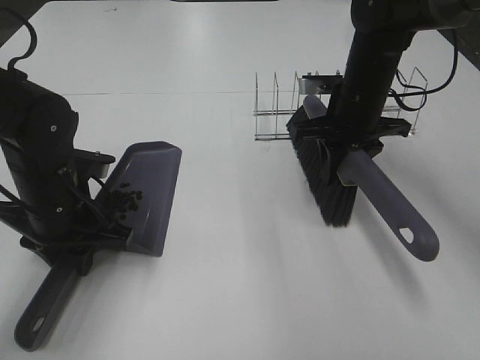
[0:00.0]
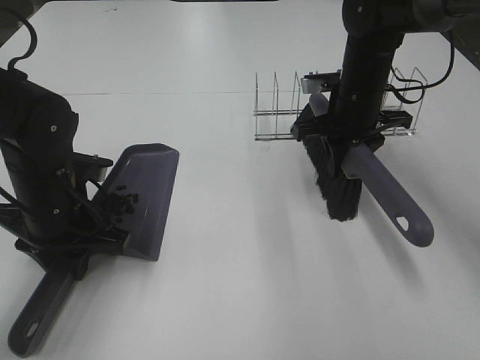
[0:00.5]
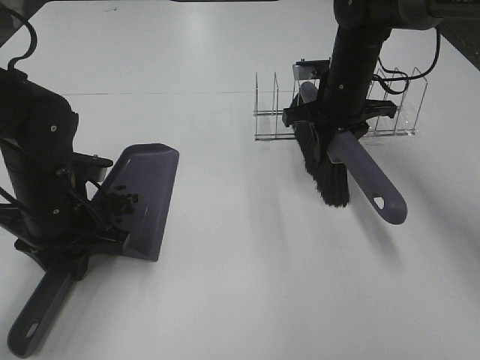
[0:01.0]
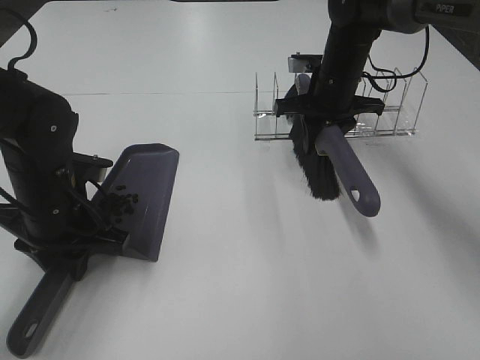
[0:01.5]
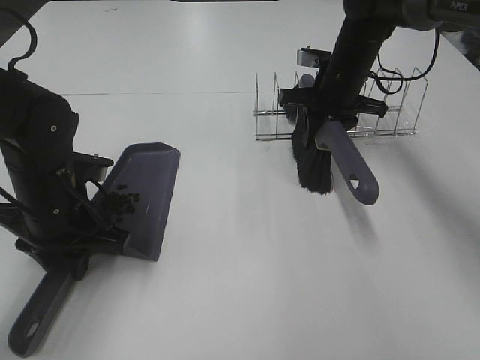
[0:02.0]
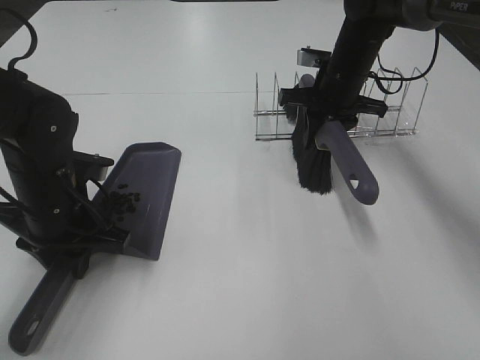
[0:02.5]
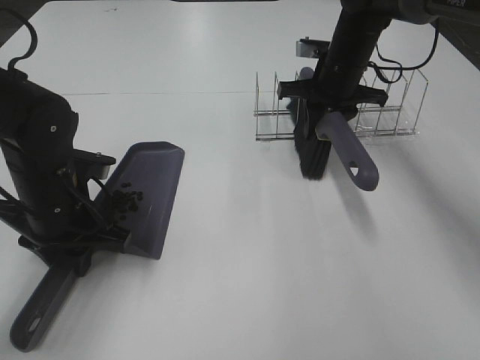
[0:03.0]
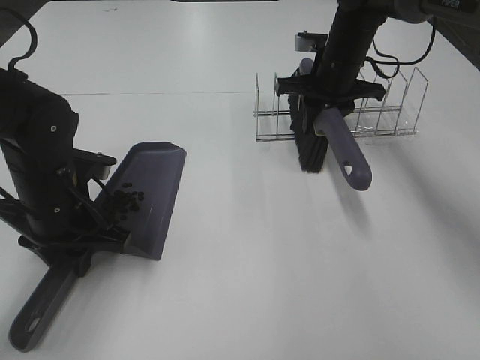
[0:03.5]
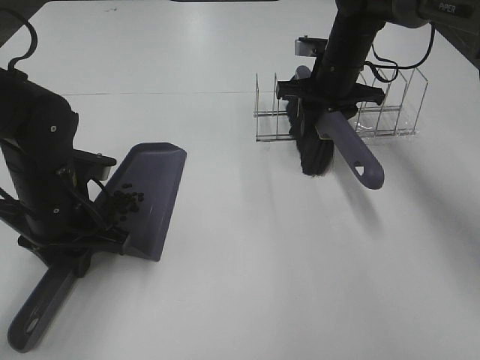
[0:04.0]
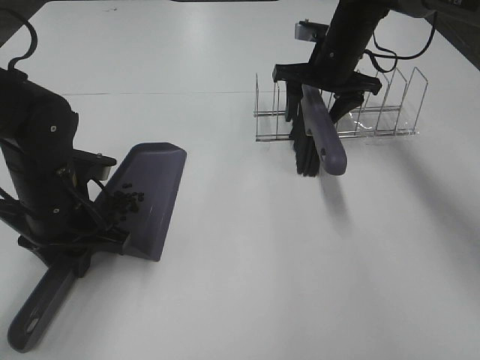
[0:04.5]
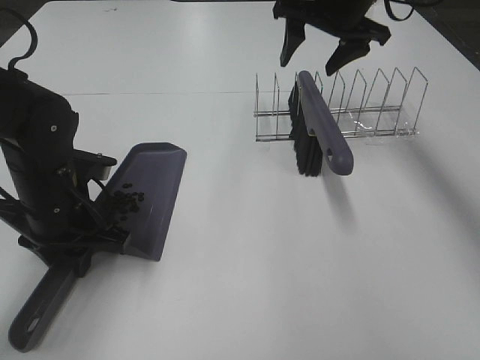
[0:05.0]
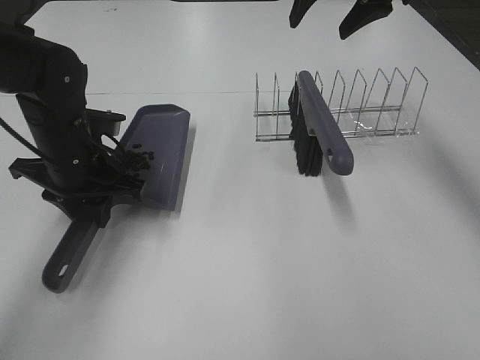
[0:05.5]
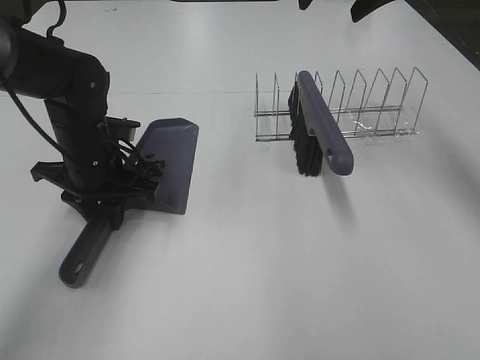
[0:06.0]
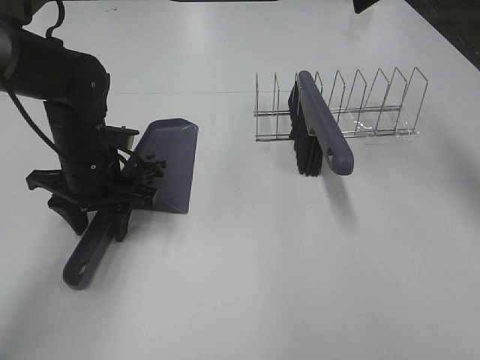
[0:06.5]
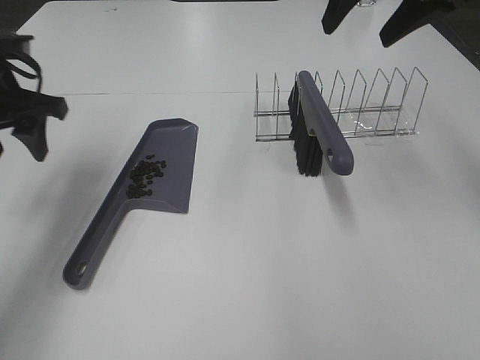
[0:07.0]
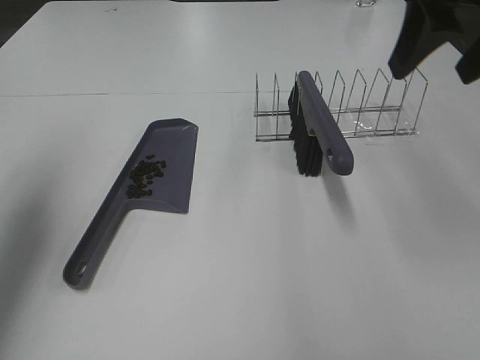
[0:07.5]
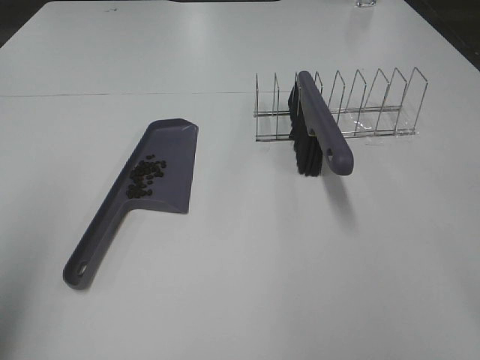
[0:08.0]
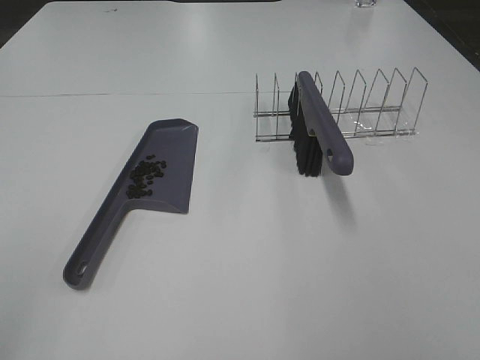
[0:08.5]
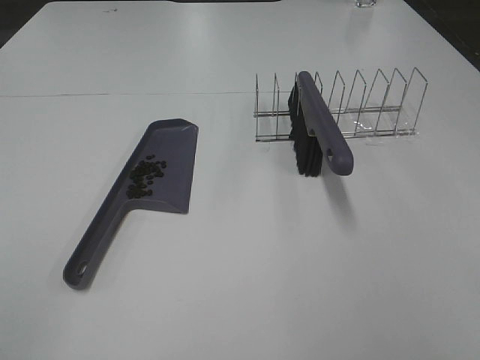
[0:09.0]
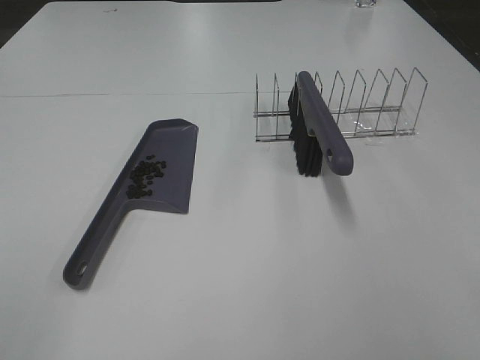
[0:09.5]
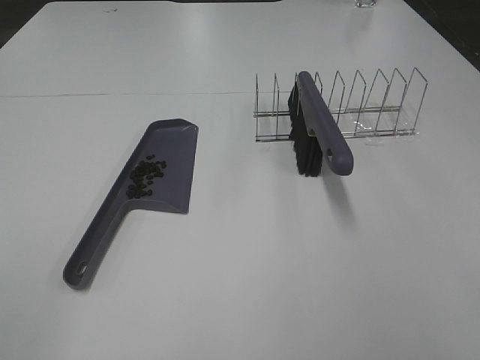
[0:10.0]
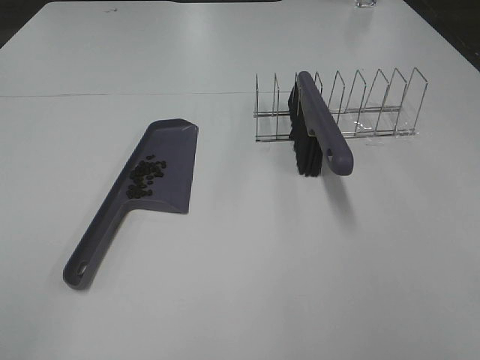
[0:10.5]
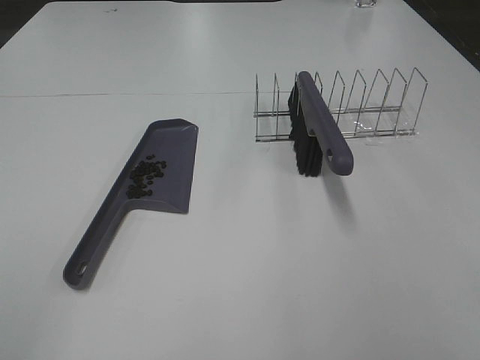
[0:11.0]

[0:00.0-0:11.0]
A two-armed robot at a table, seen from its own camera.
Task of the whole recording: Sweep Coffee Bean.
Step, 0:00.0 to 0:04.0: Right hand:place the broom on the rack.
Step, 0:04.5 to 0:06.0: Left hand:place the dustpan on the table.
0:00.0 to 0:02.0: The right gripper moves forward, about 5 cm.
0:02.0 to 0:03.5: The grippers move only a little.
0:03.5 to 0:05.5: The left gripper moves forward, some 5 cm. Meanwhile the right gripper is displaced upward by some 15 cm, and opens.
0:05.5 to 0:07.5: The right gripper goes some 20 cm backward; the left gripper goes some 20 cm upward and to the left.
0:07.5 to 0:09.0: Both grippers move backward, approximately 30 cm. The left gripper opens its fingers.

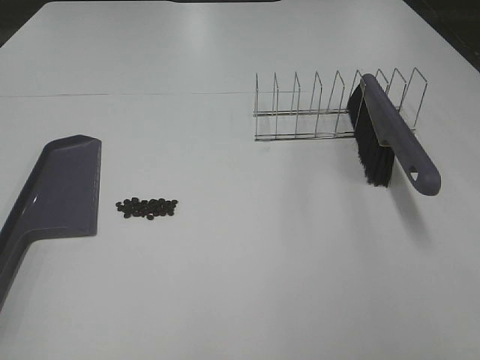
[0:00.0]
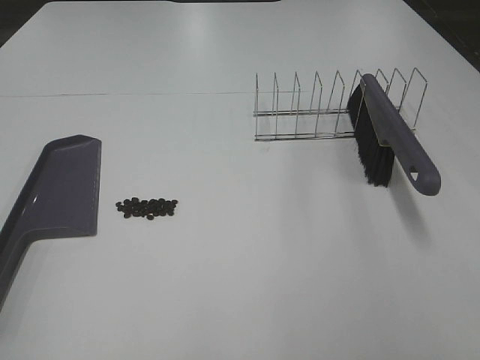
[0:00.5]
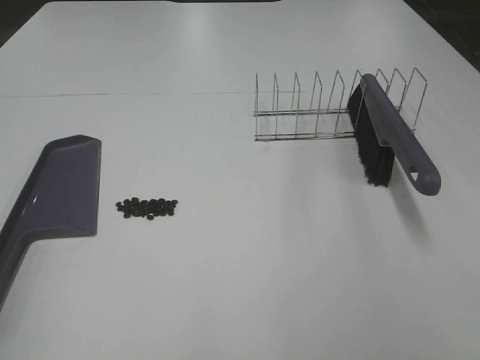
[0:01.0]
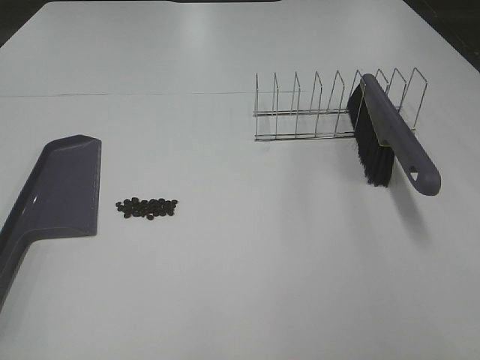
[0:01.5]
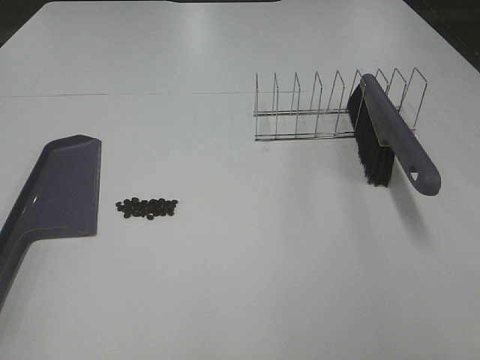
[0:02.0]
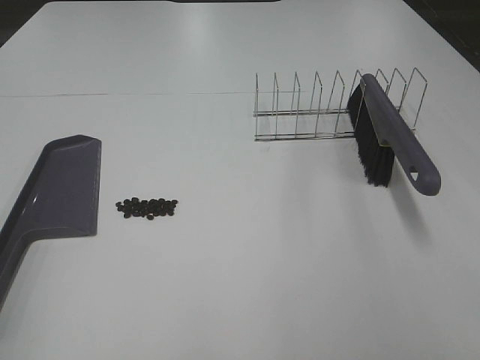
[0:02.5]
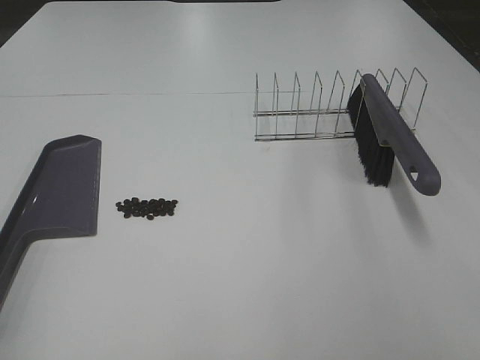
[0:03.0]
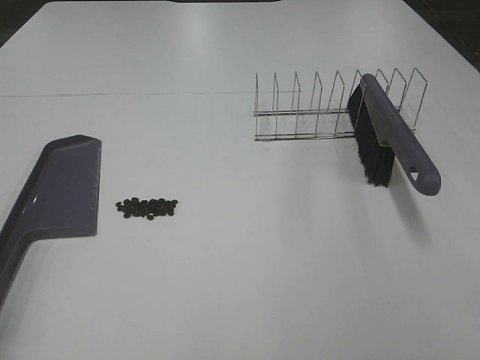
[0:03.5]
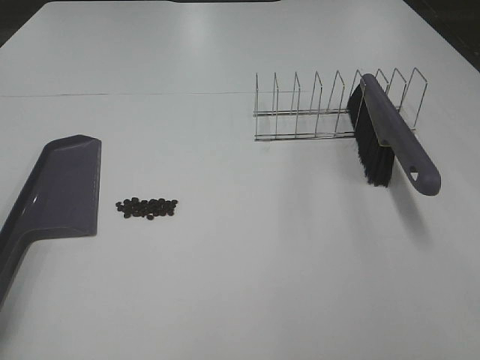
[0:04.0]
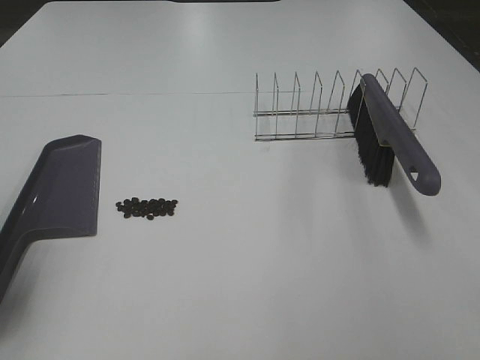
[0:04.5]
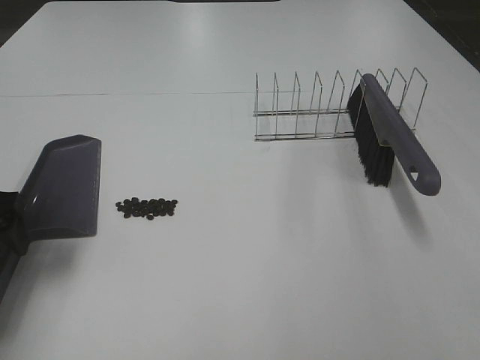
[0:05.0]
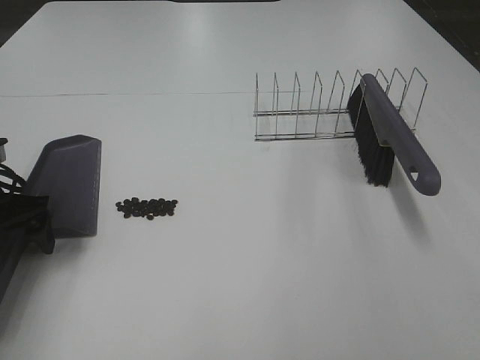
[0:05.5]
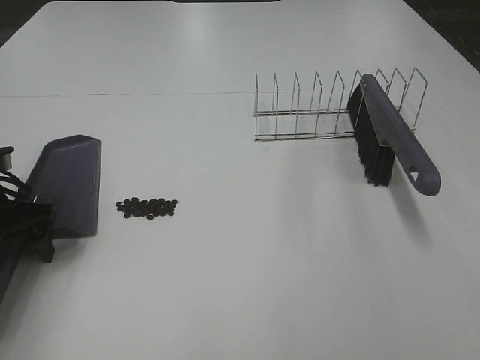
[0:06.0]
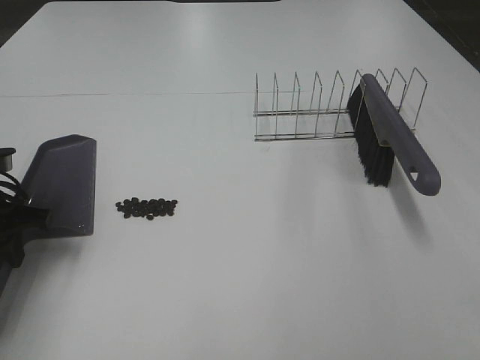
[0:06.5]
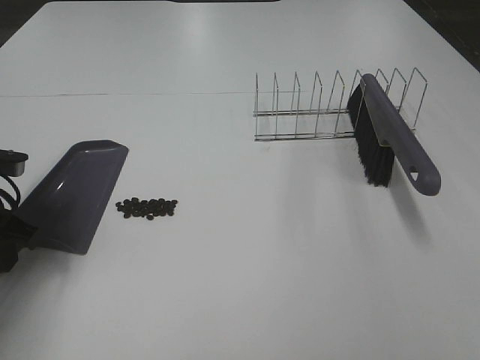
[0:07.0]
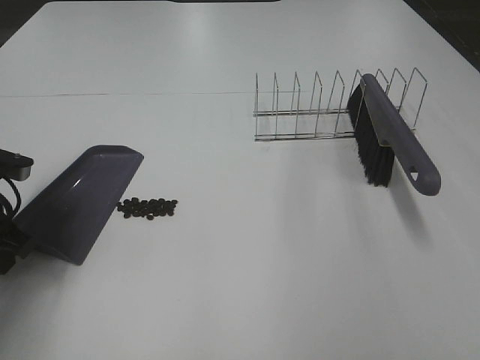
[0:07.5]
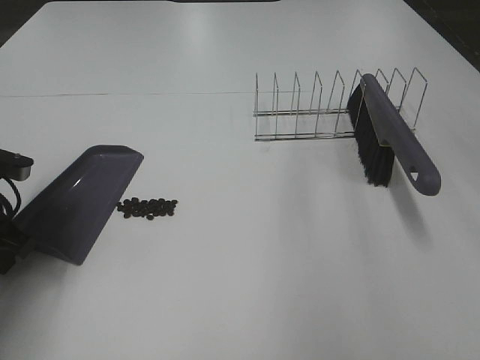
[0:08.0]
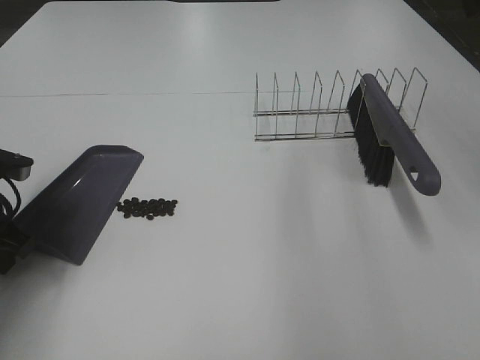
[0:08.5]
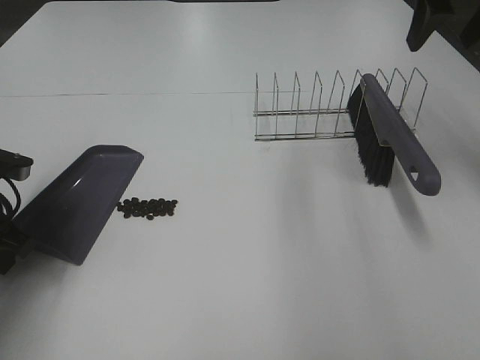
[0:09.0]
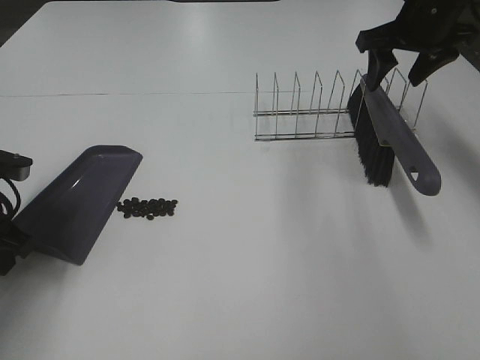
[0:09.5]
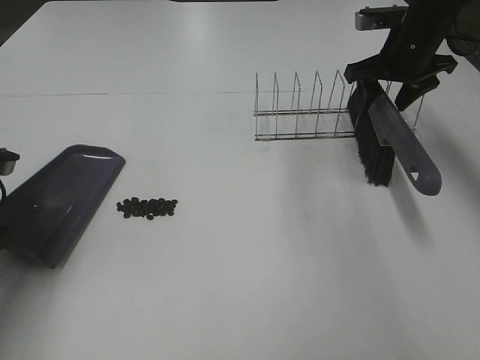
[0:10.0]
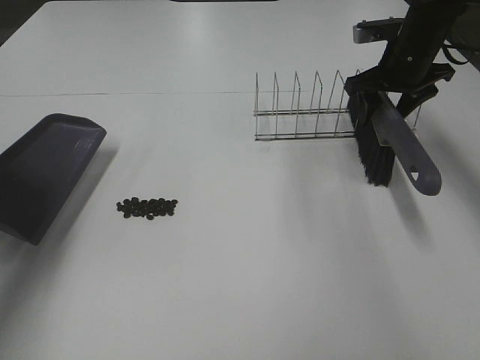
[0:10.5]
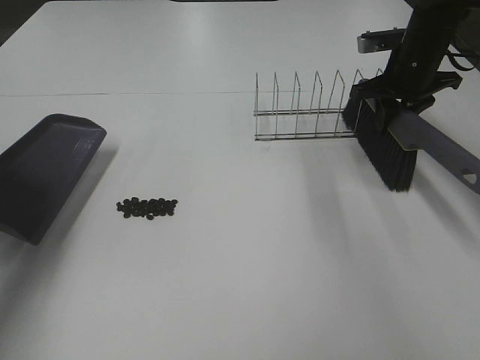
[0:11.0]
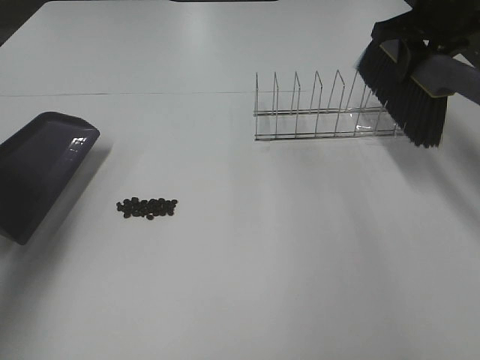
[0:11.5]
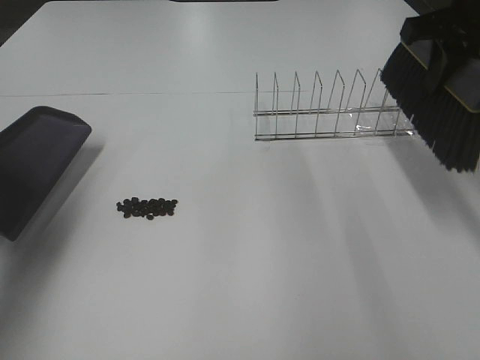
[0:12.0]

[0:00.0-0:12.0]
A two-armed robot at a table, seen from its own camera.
Task of the whole recording: Sweep Coffee Bean.
Step, 0:00.0 to 0:06.5: Left hand: grab the dustpan.
Step, 0:07.0 to 0:11.0: Right hand:grab the broom.
0:00.0 to 0:02.0: Both grippers stay put.
0:04.0 to 0:06.0: The left gripper goes roughly 20 cm forward and downward.
0:06.0 to 0:08.0: The left gripper closes.
0:08.0 to 0:10.0: The right gripper heads forward and downward, covering some 35 cm.
0:10.0 to 0:12.0: The right gripper moves backward and upward, roughly 15 cm, and closes up.

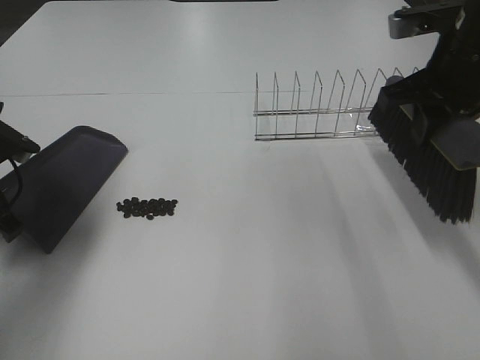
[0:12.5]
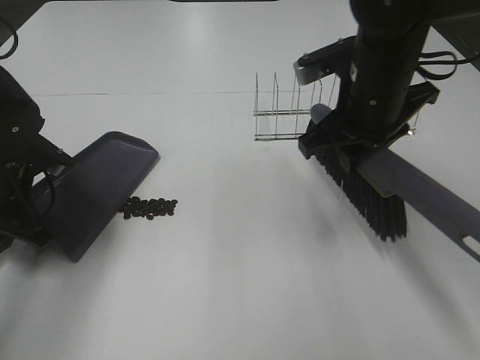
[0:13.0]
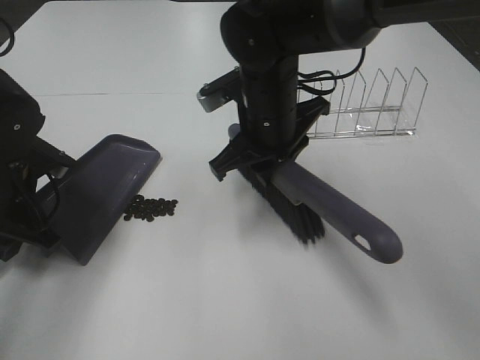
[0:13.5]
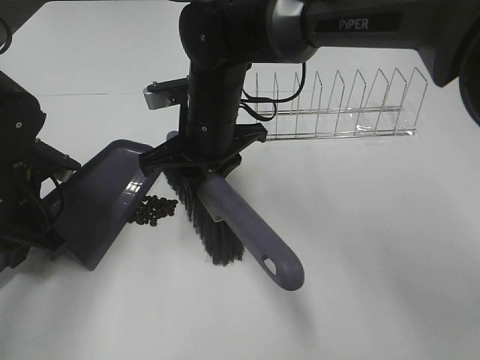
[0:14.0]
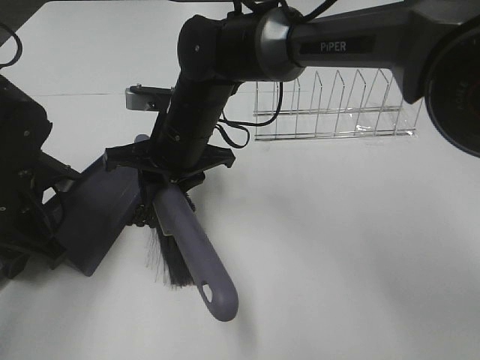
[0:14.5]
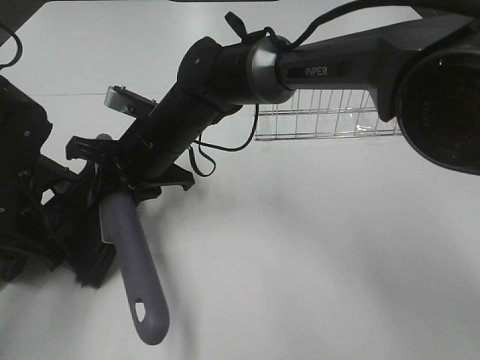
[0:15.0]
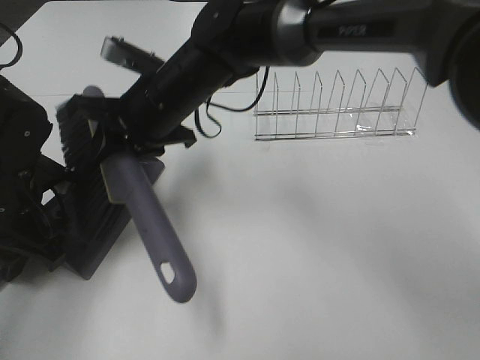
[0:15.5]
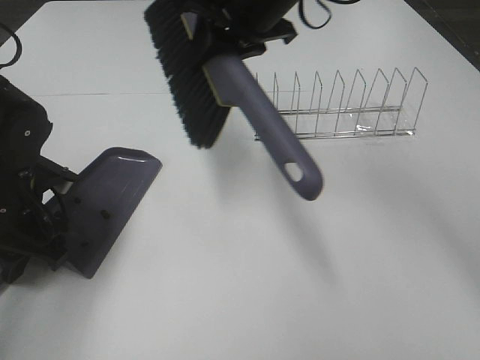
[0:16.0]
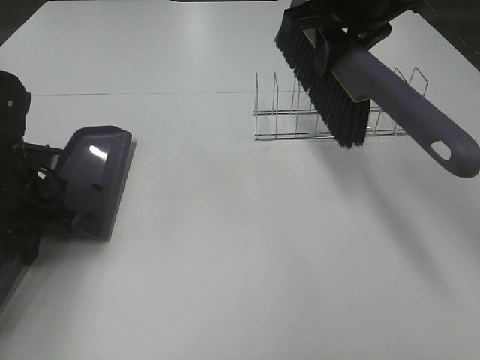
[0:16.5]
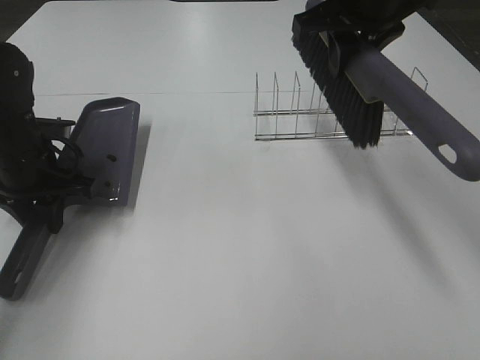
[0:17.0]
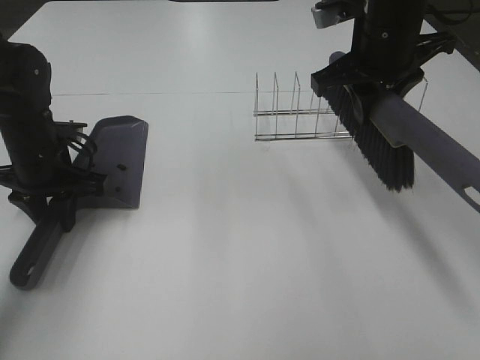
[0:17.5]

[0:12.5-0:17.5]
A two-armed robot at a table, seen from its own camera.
Task of the whole recording: Sweep Coffee Bean.
Step, 0:12.5 to 0:15.5: Right hand:sweep the coffee beans into the dustpan.
0:12.5 to 0:15.0: The left gripper shifts by about 5 cm. The right gripper is displaced to the left and downward by about 35 cm.
0:15.0 to 0:17.5: The left gripper heads forward, covering approximately 10 cm, while the right gripper goes roughly 25 cm to the right and upward.
